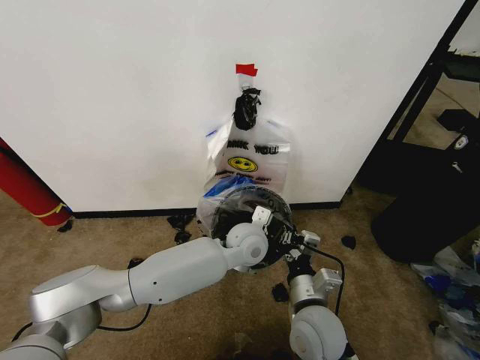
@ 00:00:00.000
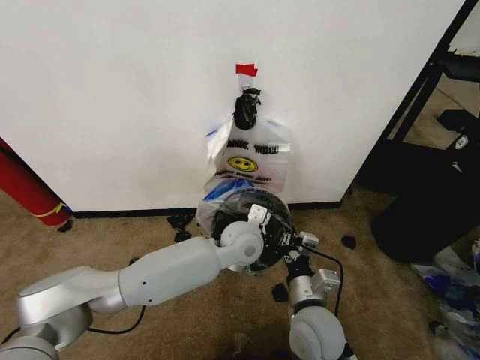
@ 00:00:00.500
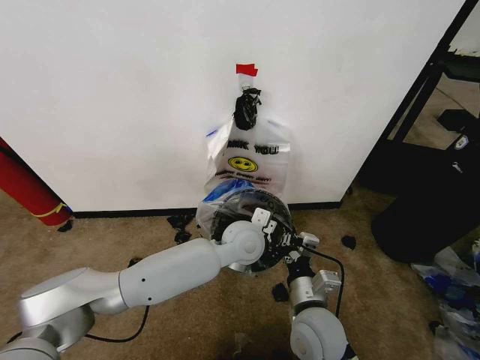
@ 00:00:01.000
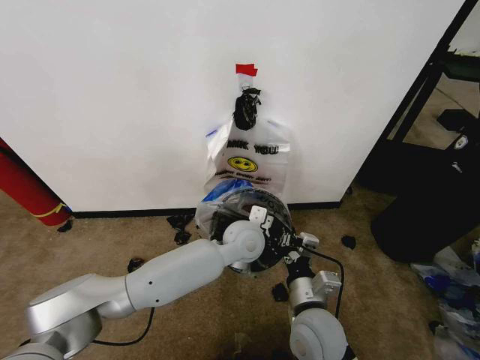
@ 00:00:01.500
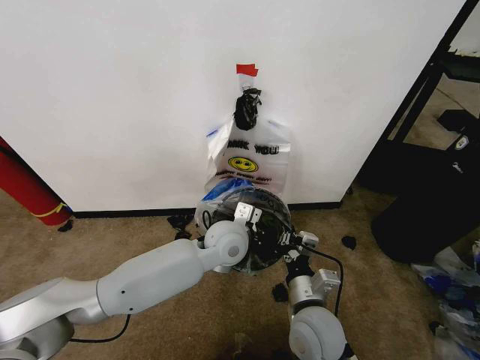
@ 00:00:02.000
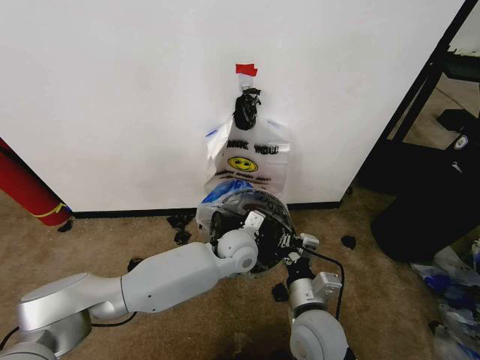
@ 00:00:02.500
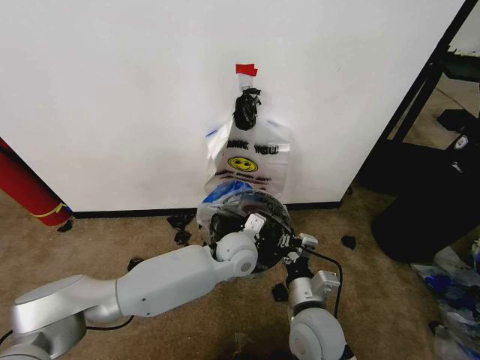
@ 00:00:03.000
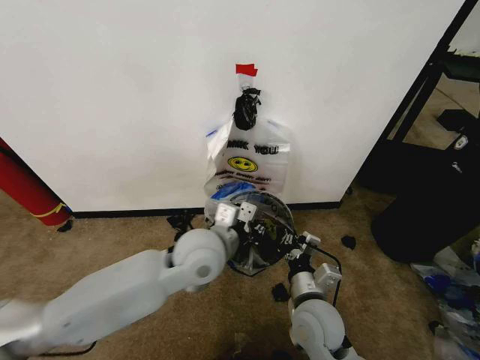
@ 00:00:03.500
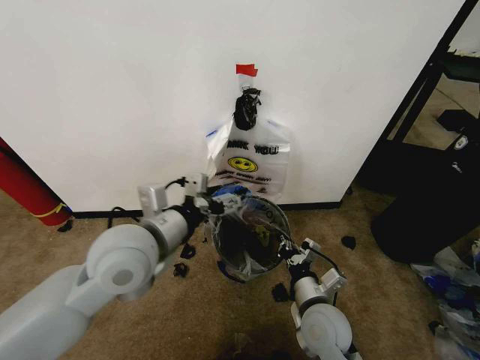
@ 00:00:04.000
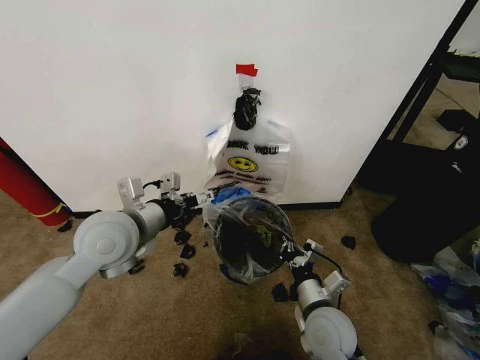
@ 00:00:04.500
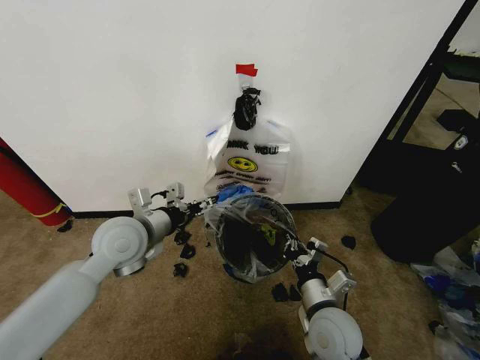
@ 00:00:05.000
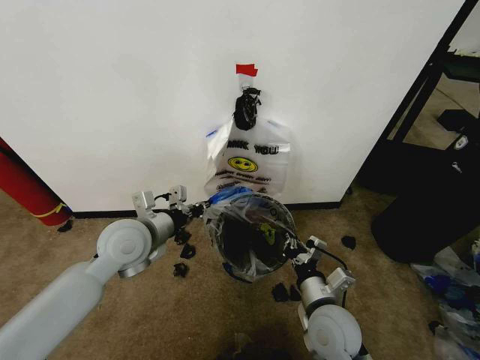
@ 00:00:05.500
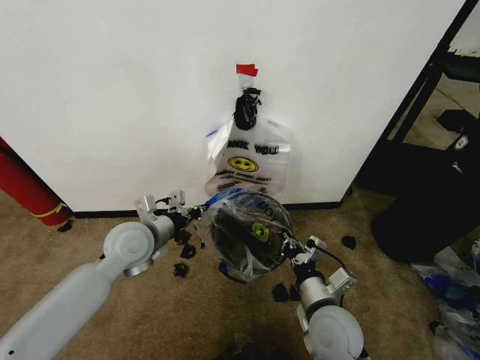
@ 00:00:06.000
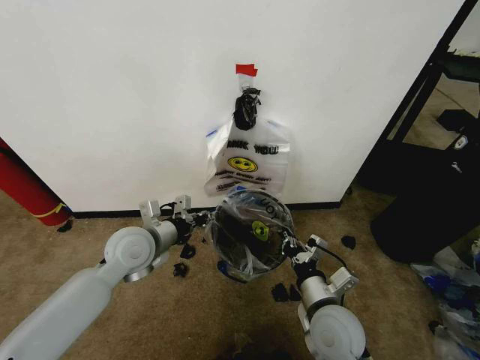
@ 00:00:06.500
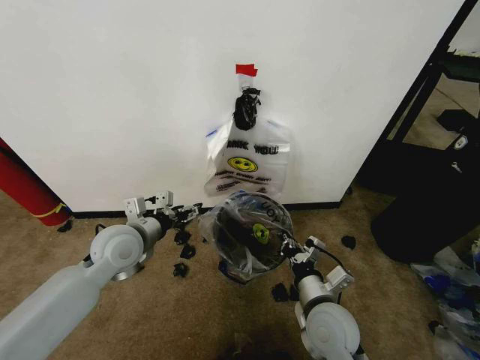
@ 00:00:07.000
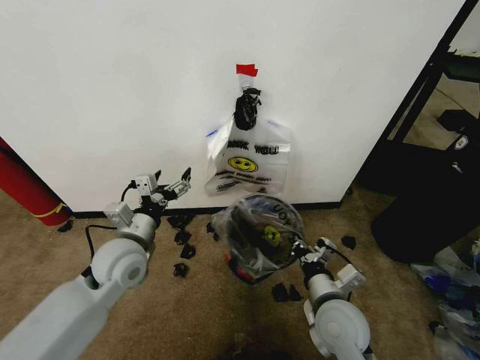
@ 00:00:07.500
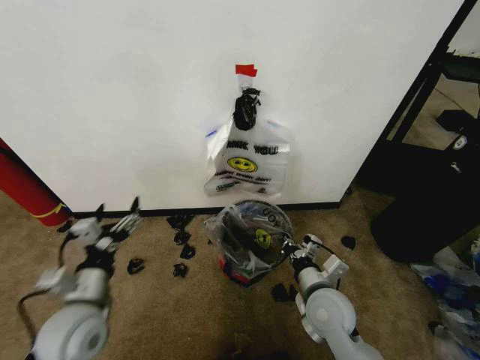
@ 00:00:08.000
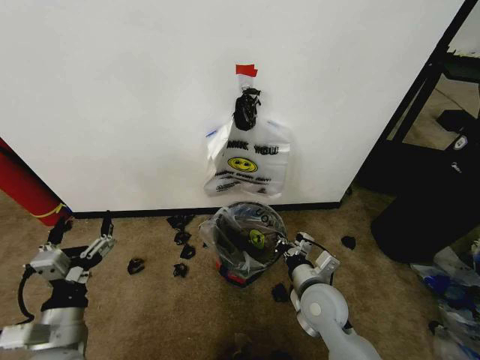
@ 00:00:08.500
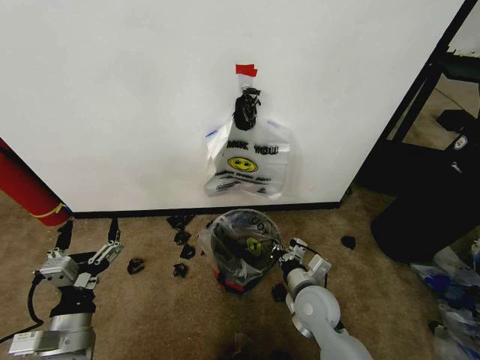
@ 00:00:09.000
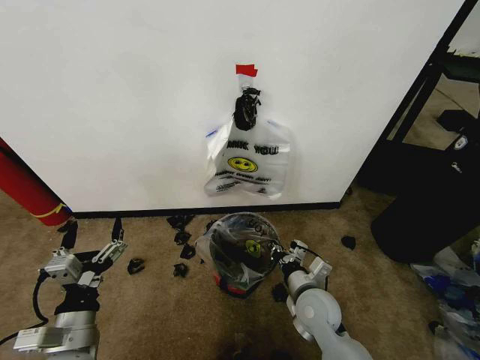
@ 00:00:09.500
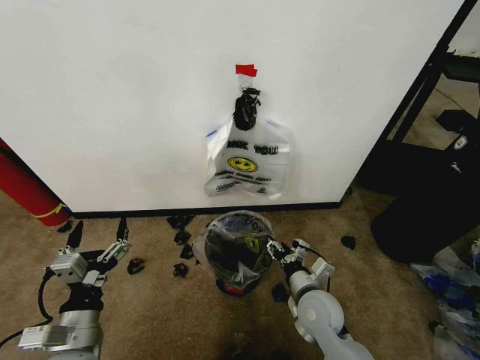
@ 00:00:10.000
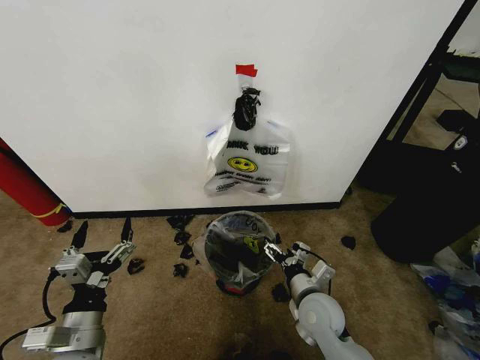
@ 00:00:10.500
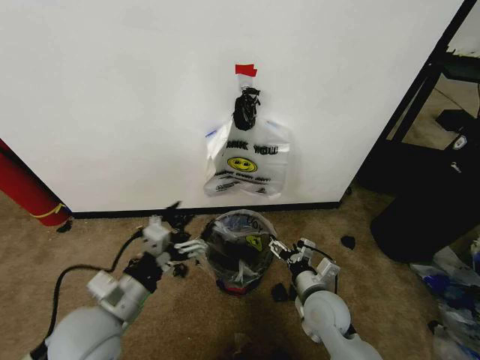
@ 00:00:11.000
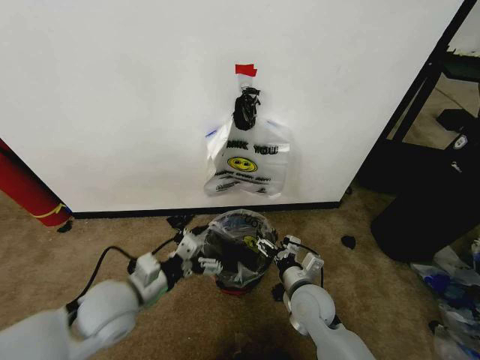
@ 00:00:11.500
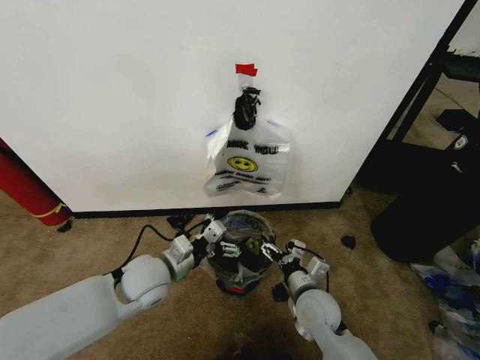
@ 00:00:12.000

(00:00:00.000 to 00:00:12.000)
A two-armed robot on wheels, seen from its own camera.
Task of the whole recording: Pick up the garbage bag from the wall and place it over the trash bin.
00:00:00.000 - 00:00:02.000: The left gripper changes place by about 5 cm.
00:00:02.000 - 00:00:04.000: The left gripper travels to the left, upward and backward by approximately 20 cm, and opens.
00:00:04.000 - 00:00:06.000: The left gripper shifts approximately 15 cm downward, forward and to the left, and closes its fingers.
00:00:06.000 - 00:00:08.000: The left gripper moves backward, about 15 cm, and opens.
00:00:08.000 - 00:00:10.000: The left gripper travels backward by about 5 cm, while the right gripper opens its fingers.
00:00:10.000 - 00:00:12.000: The left gripper heads forward and to the right, covering some 20 cm.

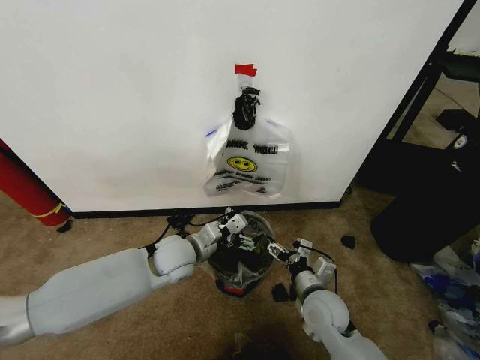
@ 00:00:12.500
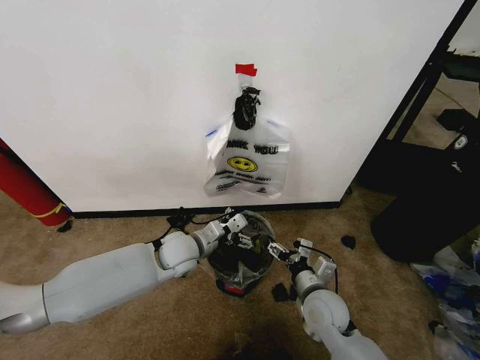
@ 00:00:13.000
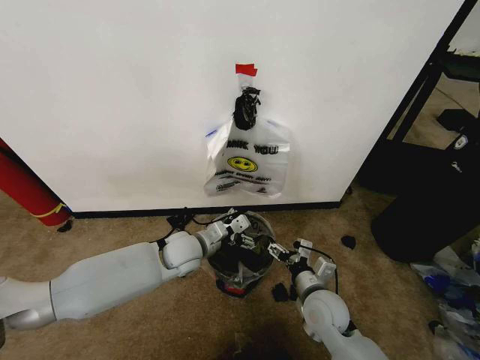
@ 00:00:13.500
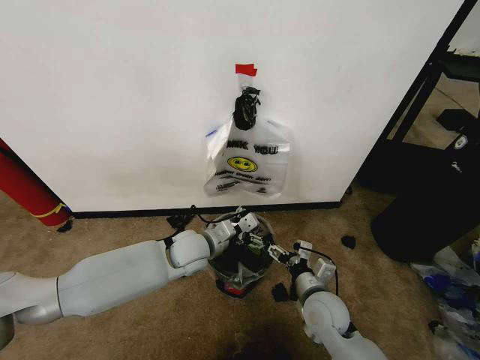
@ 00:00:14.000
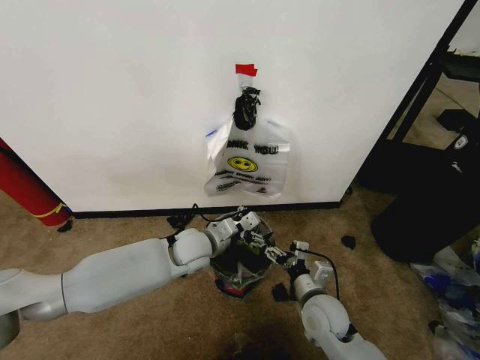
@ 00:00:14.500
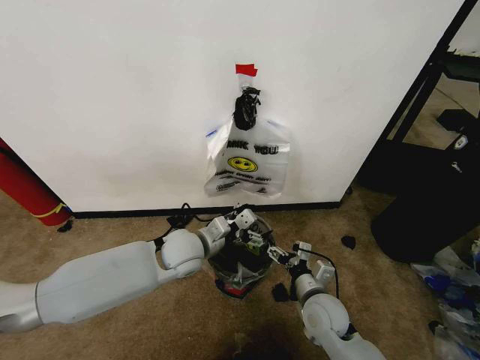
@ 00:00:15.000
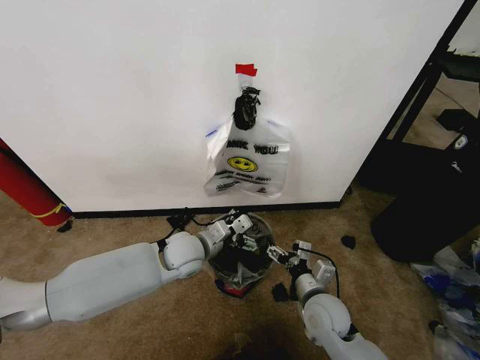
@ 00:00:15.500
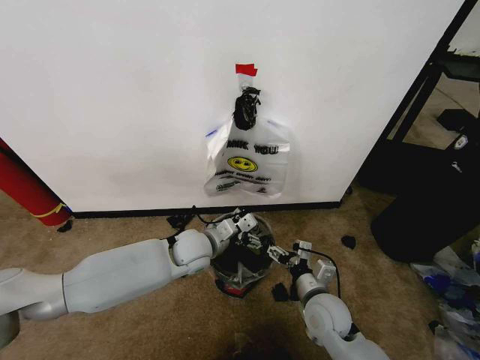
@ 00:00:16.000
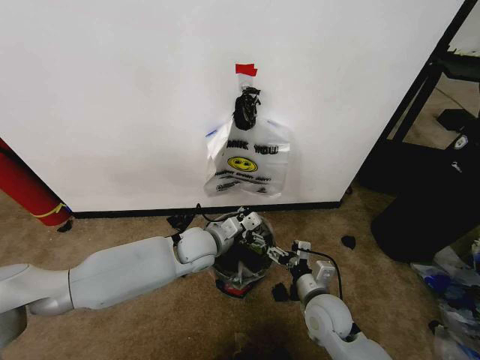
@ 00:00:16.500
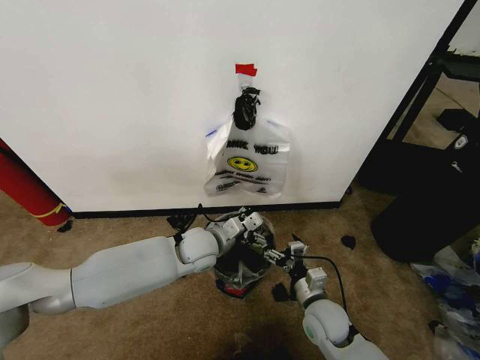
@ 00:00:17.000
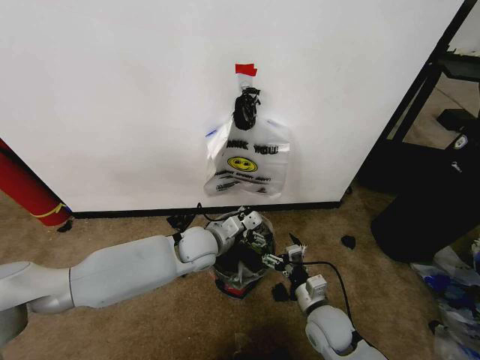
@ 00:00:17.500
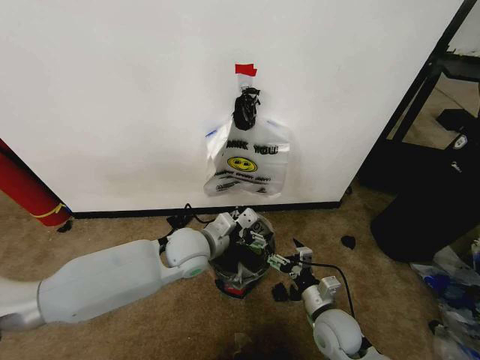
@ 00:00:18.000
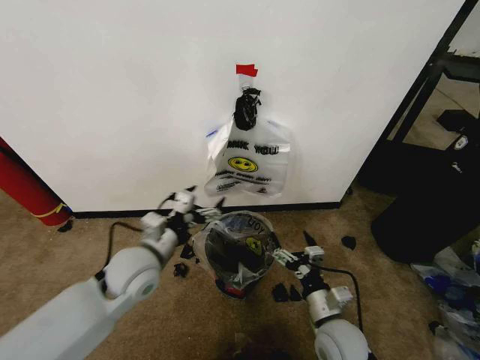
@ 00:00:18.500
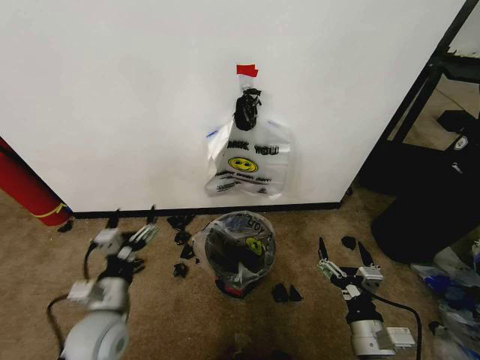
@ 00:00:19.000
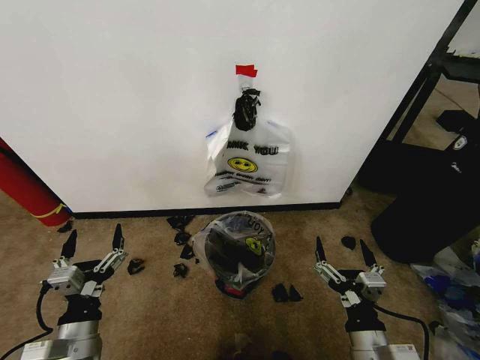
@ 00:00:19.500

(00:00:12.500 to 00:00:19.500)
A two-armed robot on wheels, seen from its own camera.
Task of the whole recording: Pick up the garbage bag from the wall and place it over the trash bin.
00:00:12.500 - 00:00:16.000: There are only small adjustments of the grippers.
00:00:17.500 - 00:00:19.500: The left gripper heads backward and to the left, covering roughly 30 cm. Meanwhile the right gripper heads backward and upward, covering about 15 cm.
